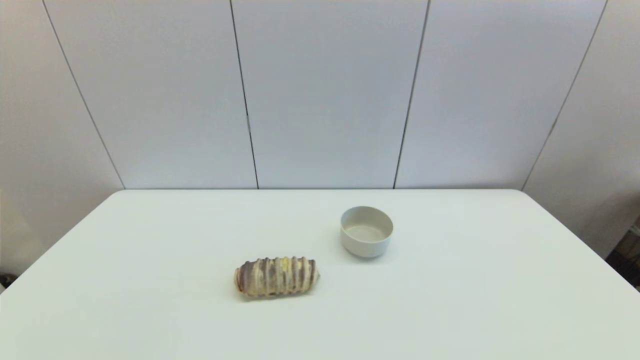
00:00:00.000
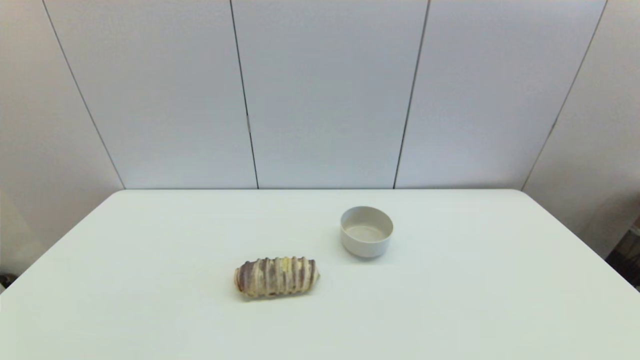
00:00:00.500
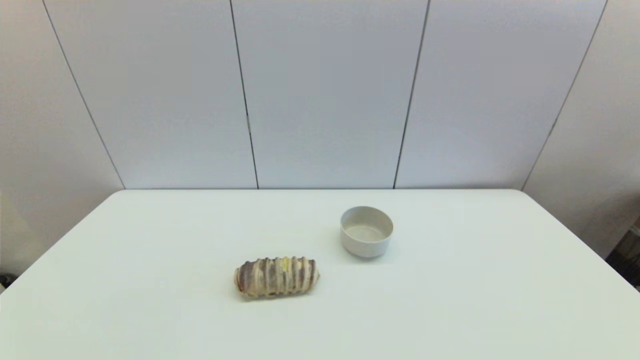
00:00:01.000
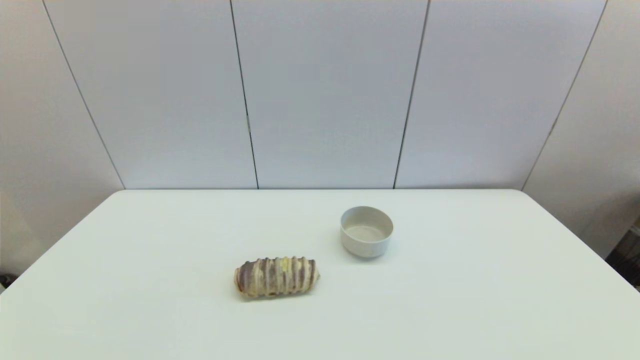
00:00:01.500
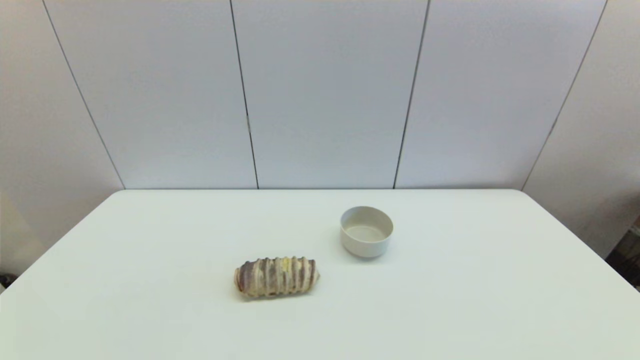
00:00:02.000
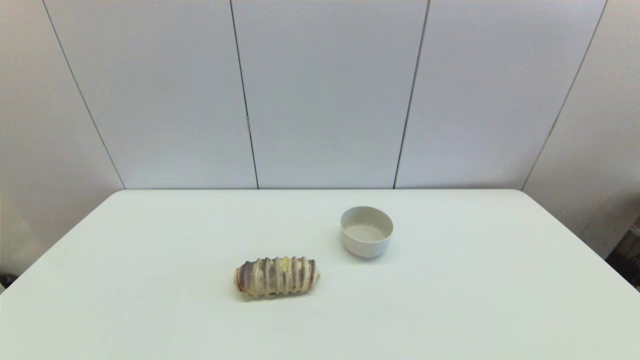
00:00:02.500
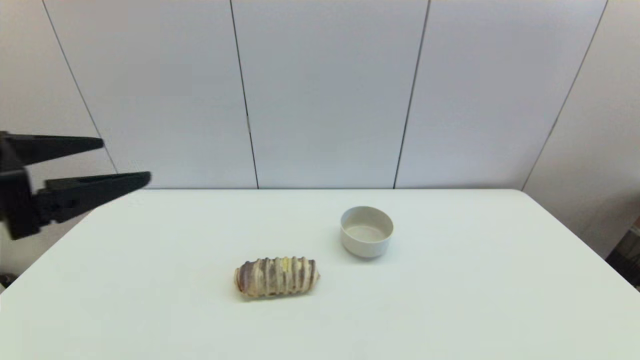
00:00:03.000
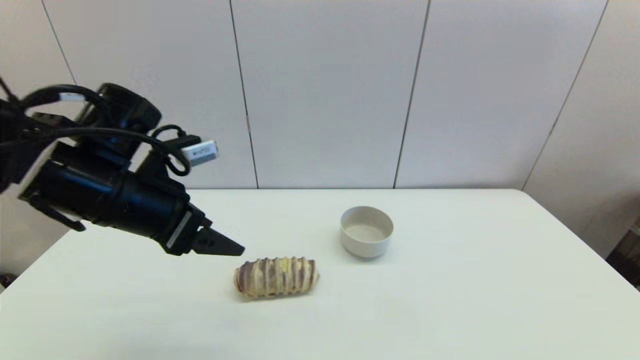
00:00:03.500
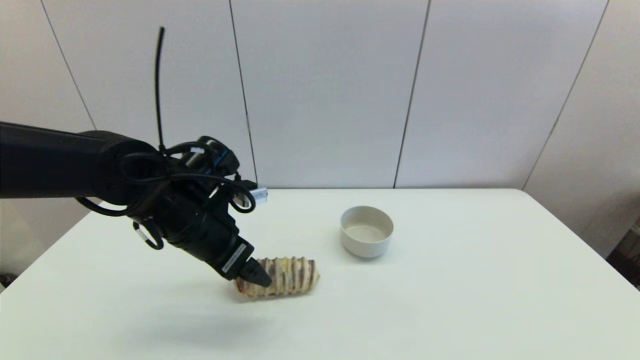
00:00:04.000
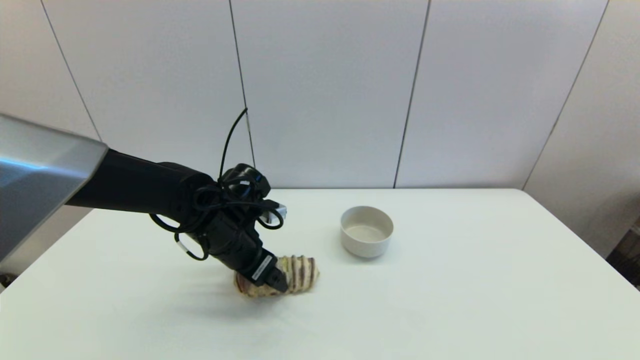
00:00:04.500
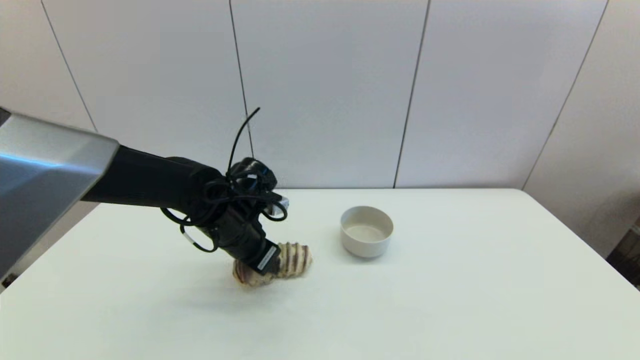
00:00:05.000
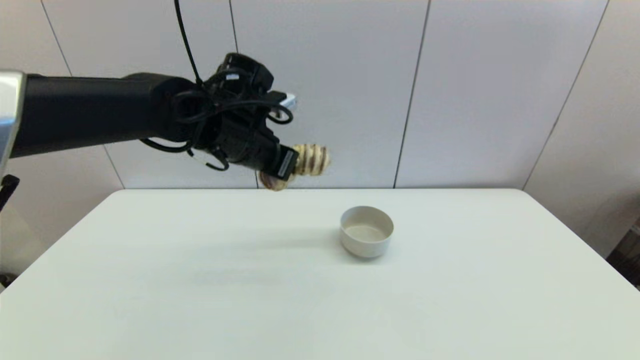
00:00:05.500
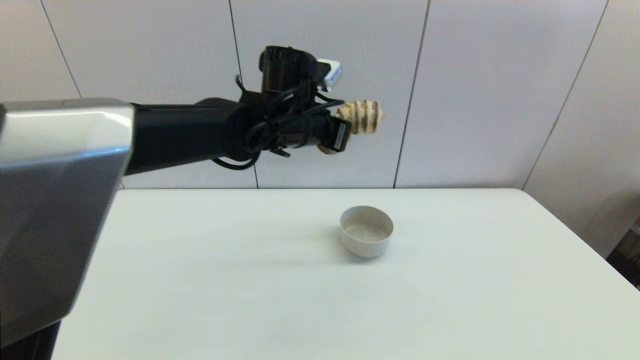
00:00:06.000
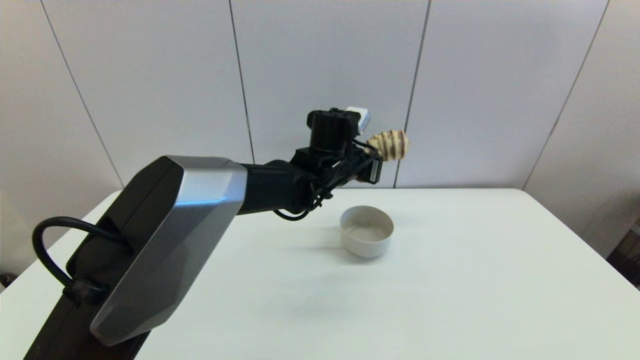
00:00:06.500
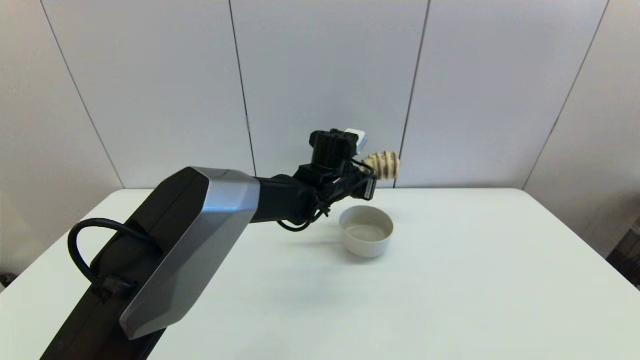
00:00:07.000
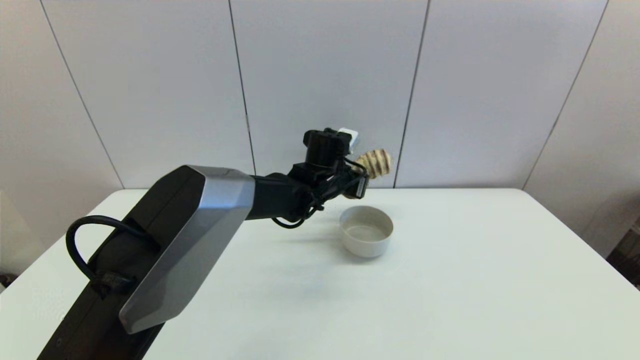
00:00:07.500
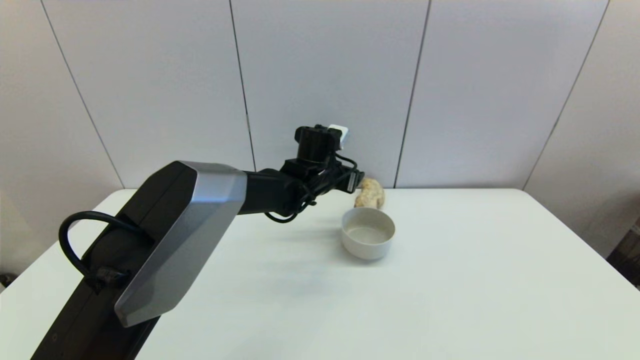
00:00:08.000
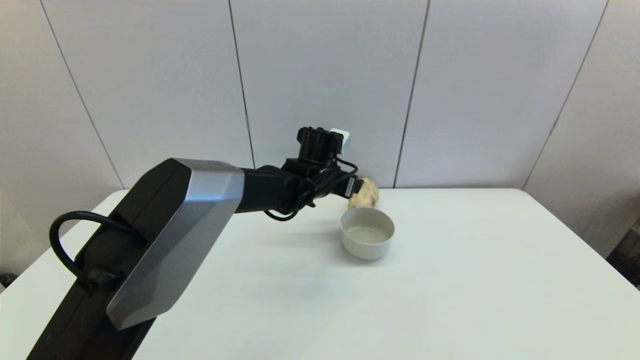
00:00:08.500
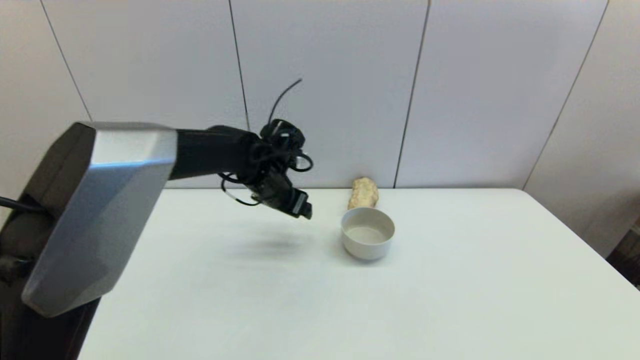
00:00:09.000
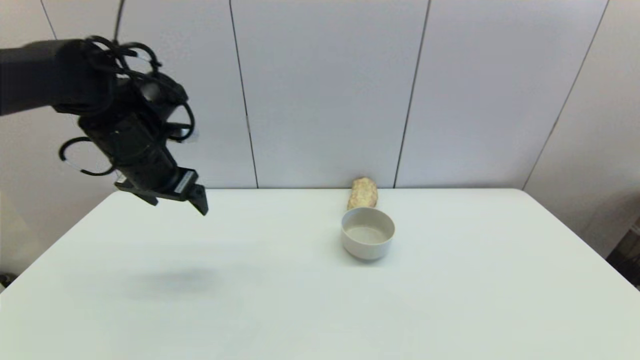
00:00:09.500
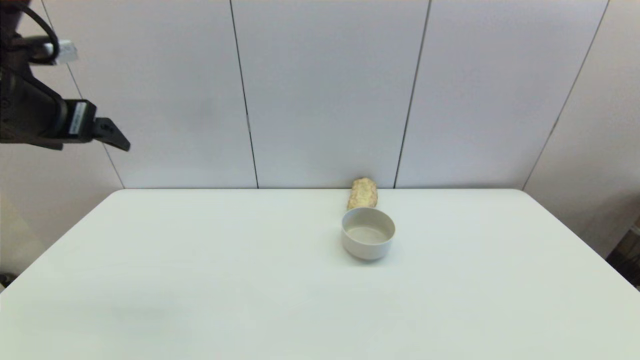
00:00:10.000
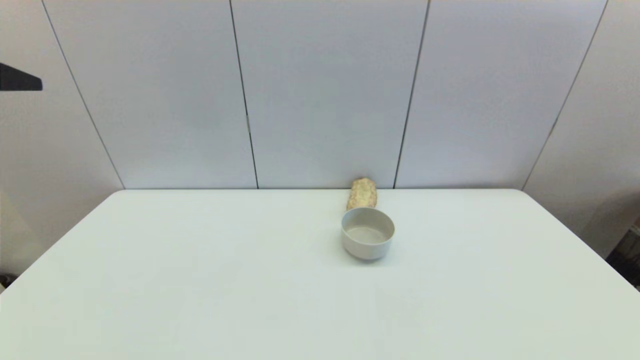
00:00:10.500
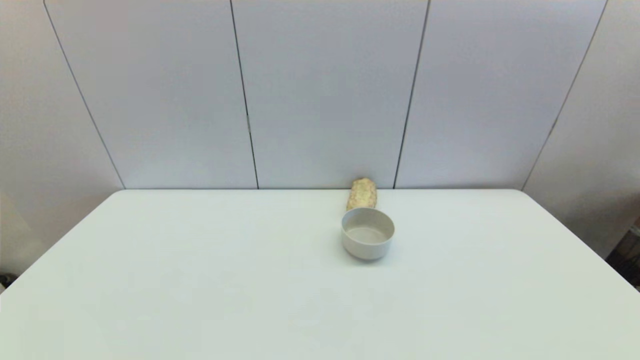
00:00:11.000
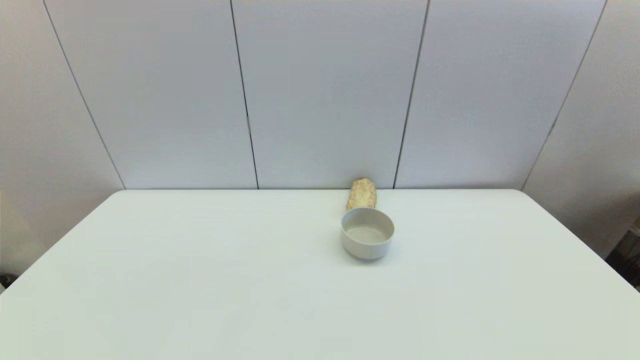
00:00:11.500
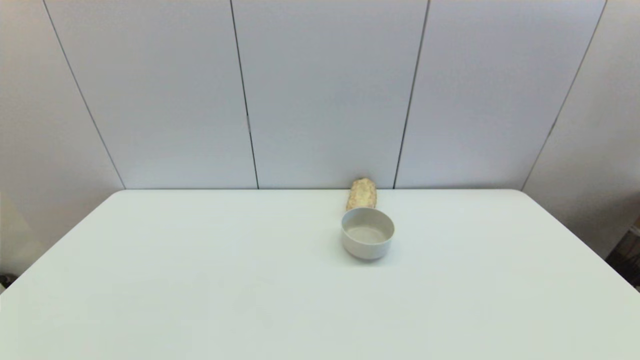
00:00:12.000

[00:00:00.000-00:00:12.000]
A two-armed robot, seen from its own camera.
Step, 00:00:03.000 to 00:00:04.500: Grasp the long bread with left gripper.
Step, 00:00:05.500 to 00:00:08.000: Place the long bread on the table with left gripper.
00:00:02.000 to 00:00:04.000: The left gripper heads forward and to the right, covering roughly 35 cm.
00:00:04.000 to 00:00:06.000: The left gripper is displaced to the right, forward and upward by approximately 20 cm, and closes up.
00:00:06.000 to 00:00:08.000: The left gripper travels downward by about 10 cm, and opens its fingers.
00:00:08.000 to 00:00:10.000: The left gripper heads to the left, upward and backward, covering some 40 cm.
00:00:10.000 to 00:00:12.000: The left gripper goes approximately 40 cm backward and downward.

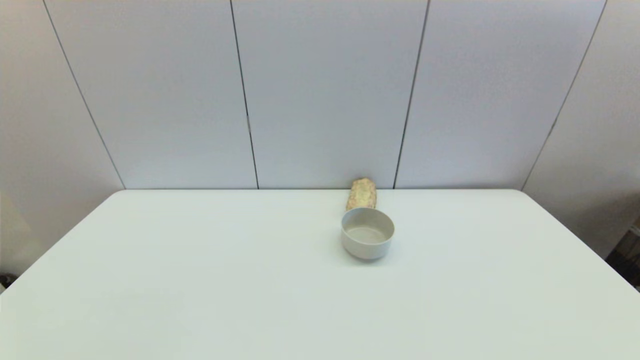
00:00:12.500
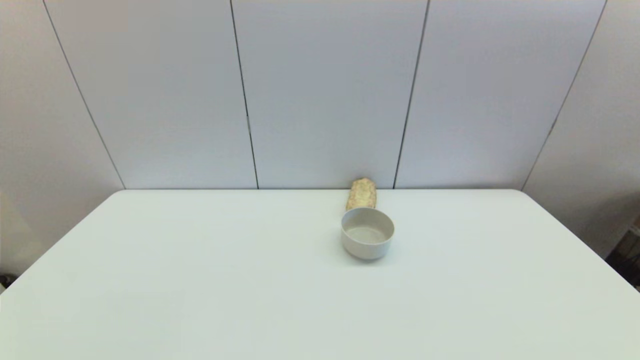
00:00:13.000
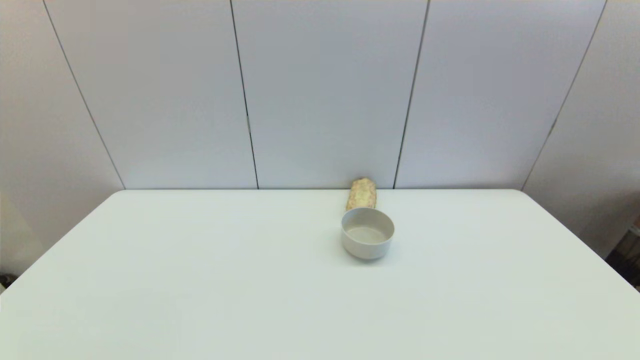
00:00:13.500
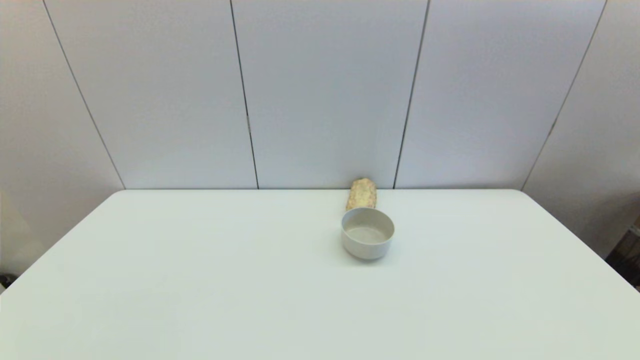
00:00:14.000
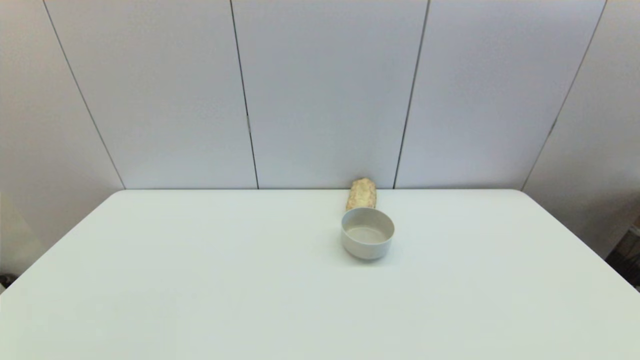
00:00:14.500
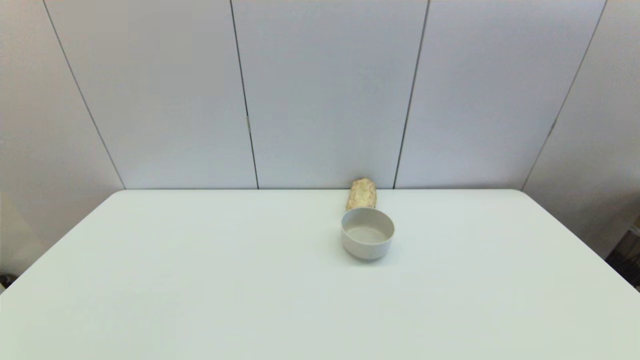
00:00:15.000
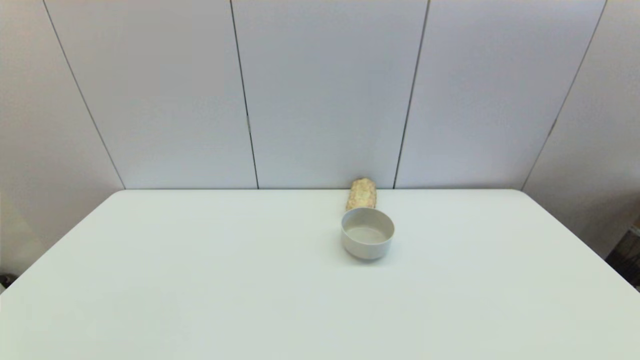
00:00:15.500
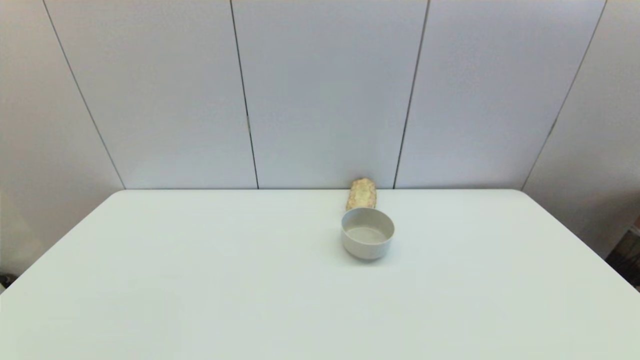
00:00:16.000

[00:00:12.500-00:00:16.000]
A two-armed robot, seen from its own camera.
00:00:12.500 to 00:00:16.000: Both grippers stay put.
